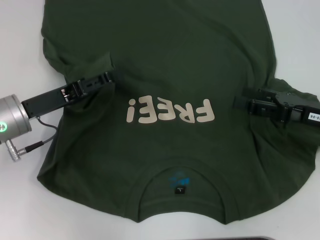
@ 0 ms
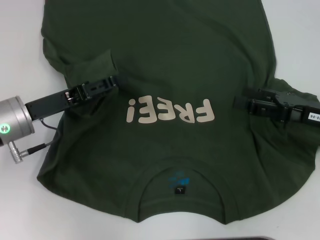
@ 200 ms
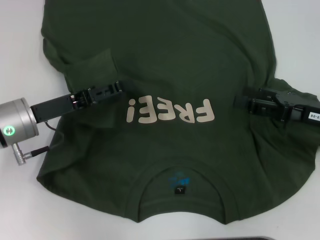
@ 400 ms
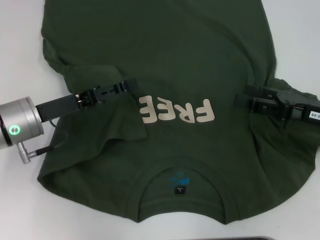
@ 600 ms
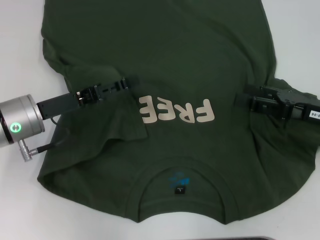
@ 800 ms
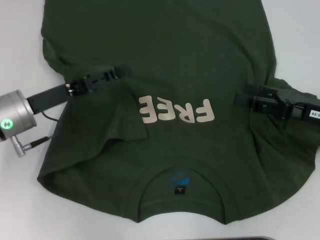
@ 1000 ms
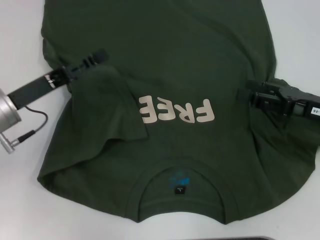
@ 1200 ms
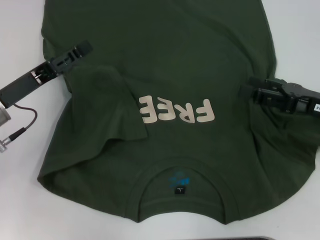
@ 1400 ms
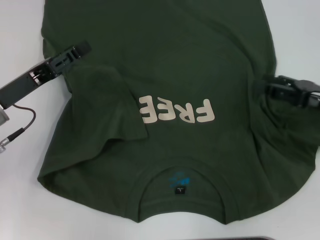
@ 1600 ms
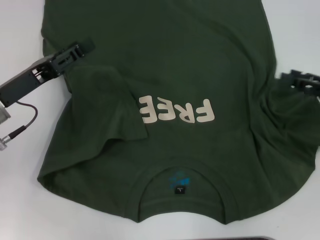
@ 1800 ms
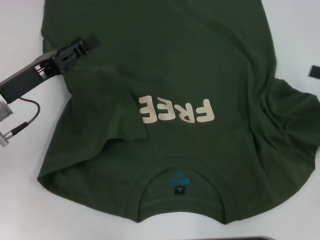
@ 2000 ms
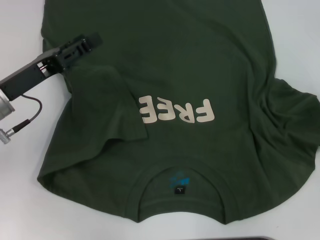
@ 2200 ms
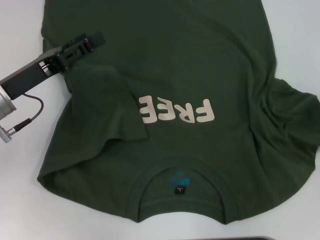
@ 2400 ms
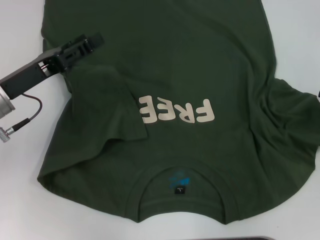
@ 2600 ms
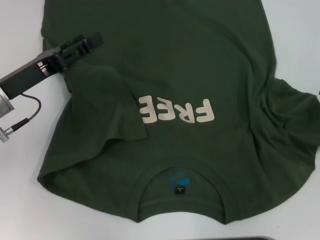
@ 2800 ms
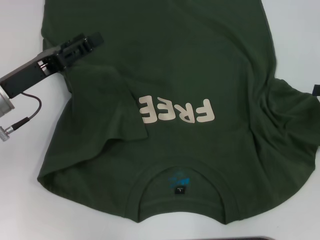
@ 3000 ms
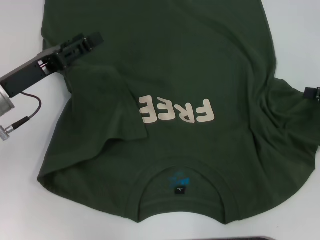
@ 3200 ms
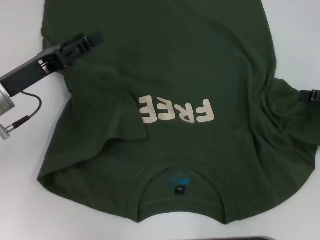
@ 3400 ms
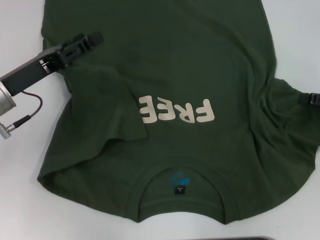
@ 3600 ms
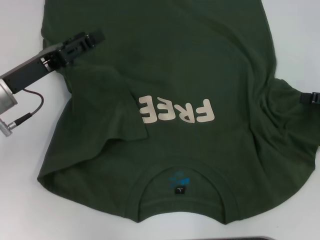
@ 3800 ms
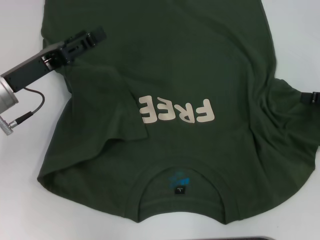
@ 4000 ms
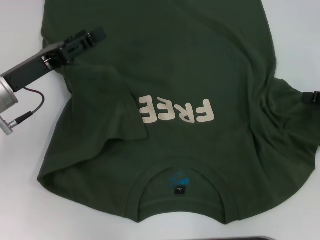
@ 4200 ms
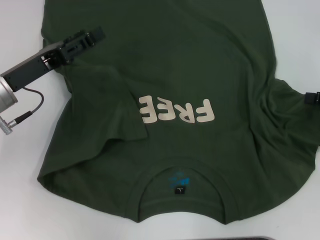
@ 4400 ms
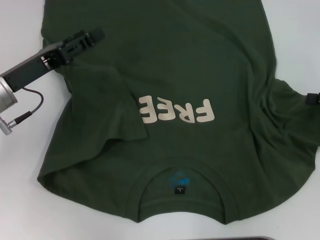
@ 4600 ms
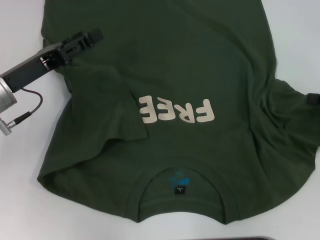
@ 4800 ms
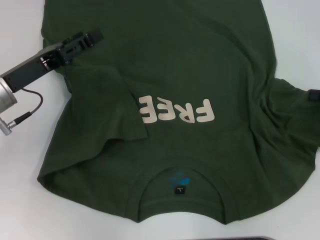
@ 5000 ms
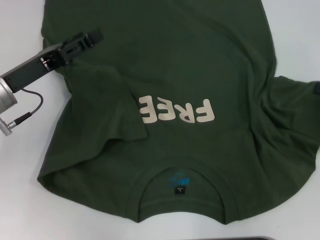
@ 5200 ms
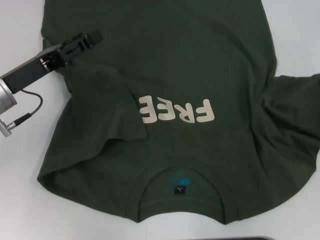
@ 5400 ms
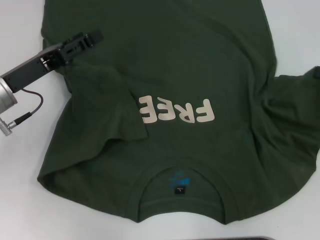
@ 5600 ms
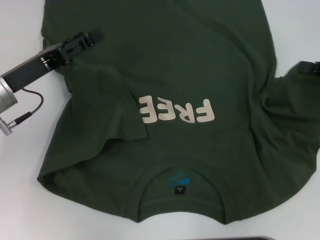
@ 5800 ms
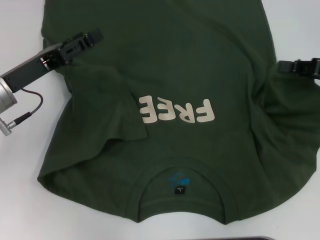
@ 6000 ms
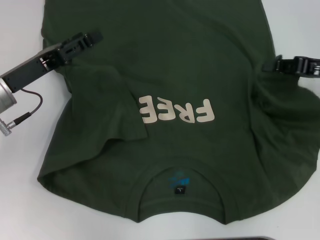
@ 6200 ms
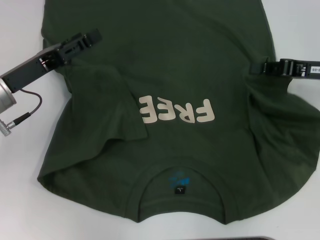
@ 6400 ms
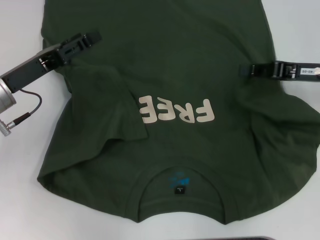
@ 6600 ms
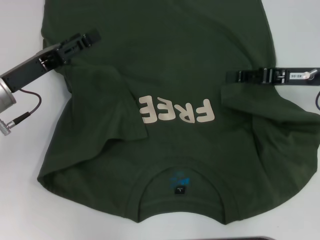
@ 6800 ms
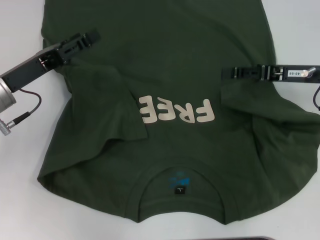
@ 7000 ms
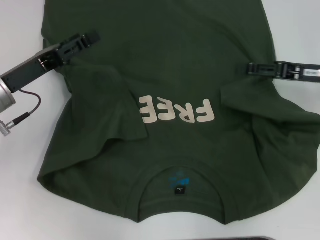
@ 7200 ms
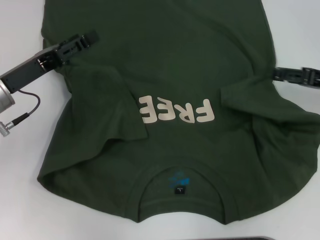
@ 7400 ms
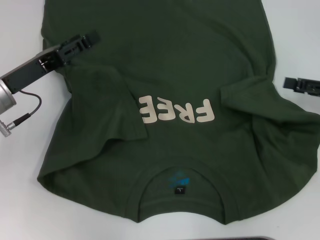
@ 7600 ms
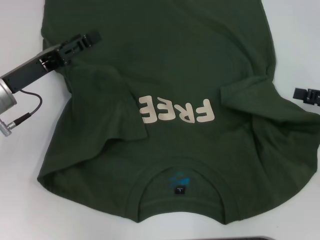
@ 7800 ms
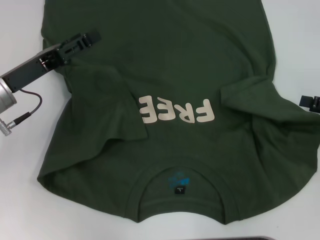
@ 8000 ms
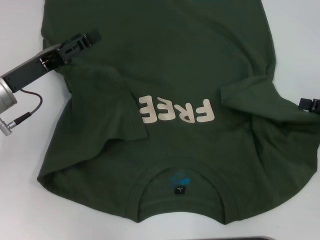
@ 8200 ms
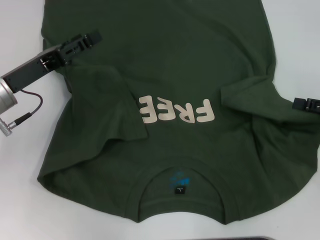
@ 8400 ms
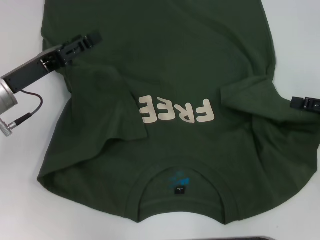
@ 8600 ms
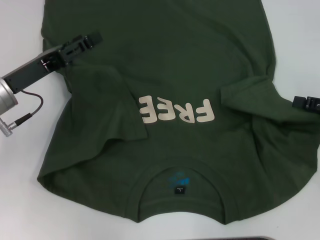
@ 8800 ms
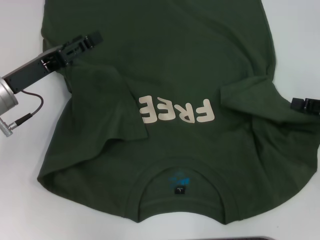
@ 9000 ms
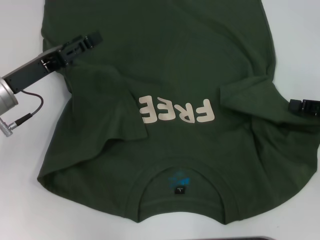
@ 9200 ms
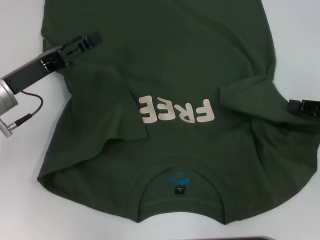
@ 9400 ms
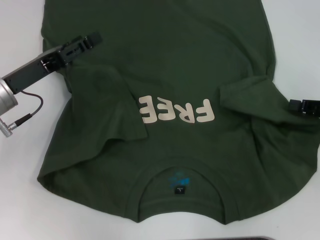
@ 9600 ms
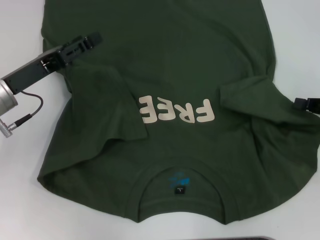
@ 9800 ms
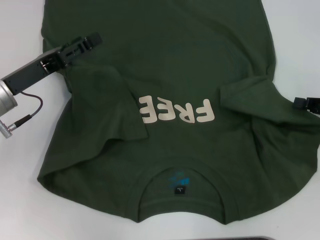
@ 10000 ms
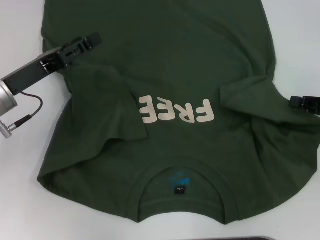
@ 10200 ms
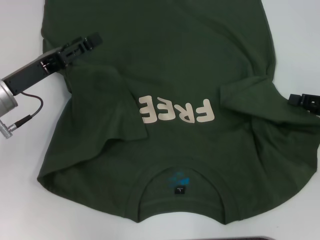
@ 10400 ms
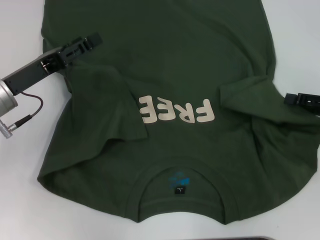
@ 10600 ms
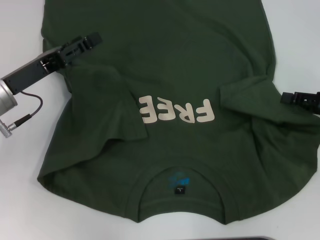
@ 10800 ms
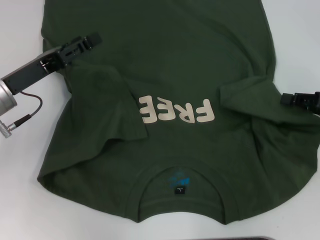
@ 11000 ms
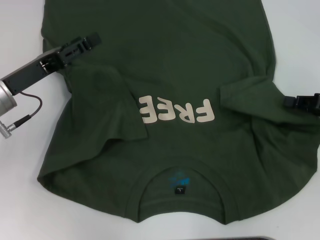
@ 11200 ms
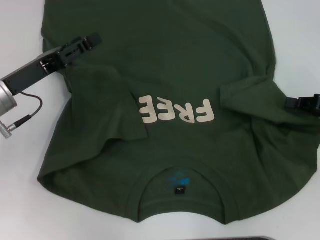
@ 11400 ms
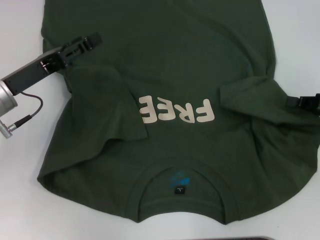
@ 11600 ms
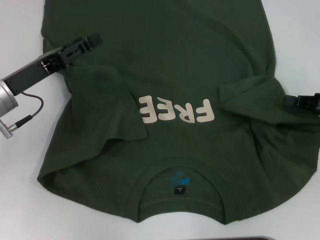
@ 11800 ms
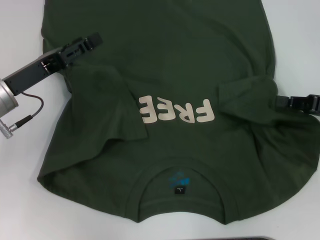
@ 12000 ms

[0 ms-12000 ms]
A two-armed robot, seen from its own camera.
0 ms to 1600 ms: There are only small adjustments of the grippers.
1600 ms to 3000 ms: The right gripper goes approximately 10 cm to the right.
4400 ms to 6000 ms: The right gripper moves about 5 cm, and closes its fingers.
6000 ms to 7600 ms: The right gripper travels to the left and back again, some 5 cm each way, and opens.
7600 ms to 9000 ms: The grippers stay close to where they were, moving slightly.
10400 ms to 12000 ms: The right gripper closes.

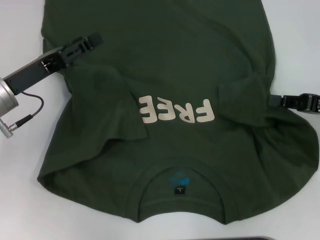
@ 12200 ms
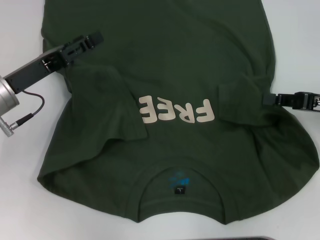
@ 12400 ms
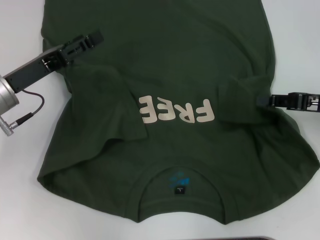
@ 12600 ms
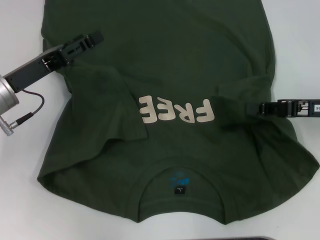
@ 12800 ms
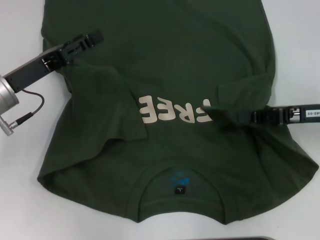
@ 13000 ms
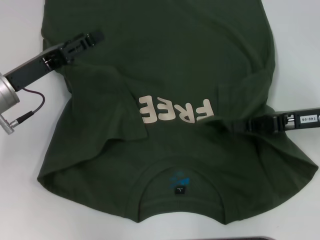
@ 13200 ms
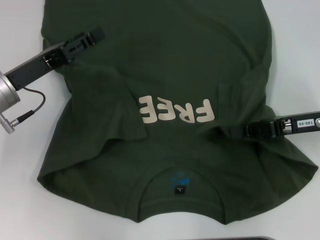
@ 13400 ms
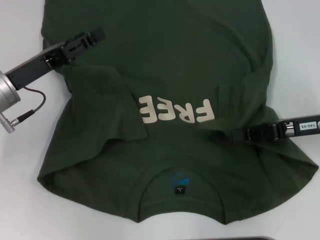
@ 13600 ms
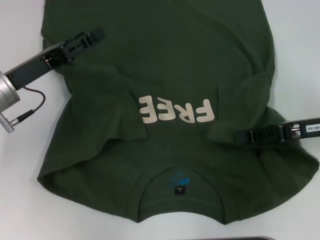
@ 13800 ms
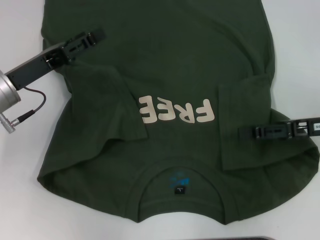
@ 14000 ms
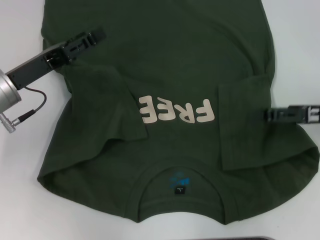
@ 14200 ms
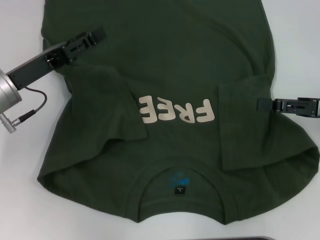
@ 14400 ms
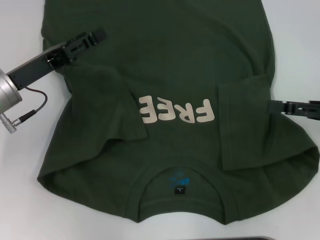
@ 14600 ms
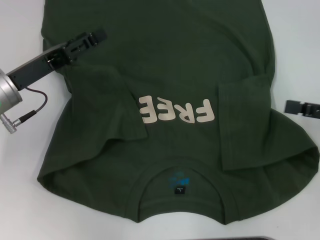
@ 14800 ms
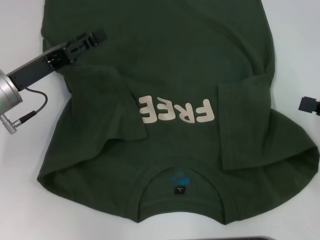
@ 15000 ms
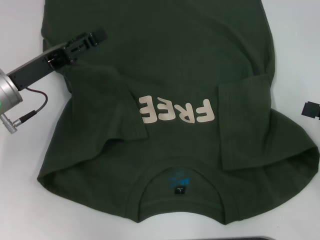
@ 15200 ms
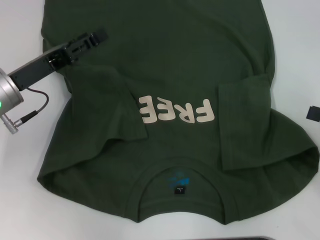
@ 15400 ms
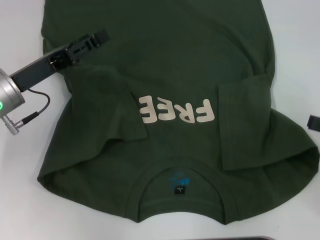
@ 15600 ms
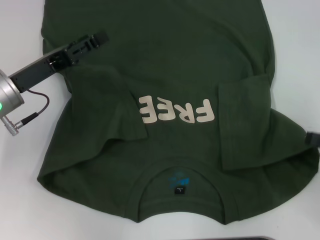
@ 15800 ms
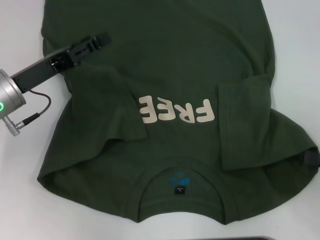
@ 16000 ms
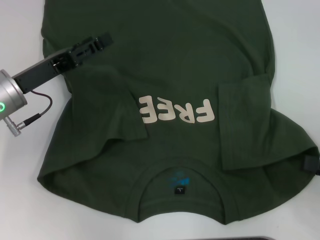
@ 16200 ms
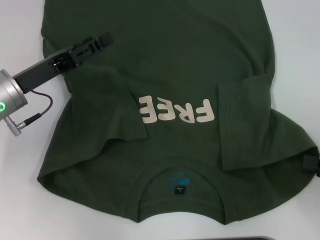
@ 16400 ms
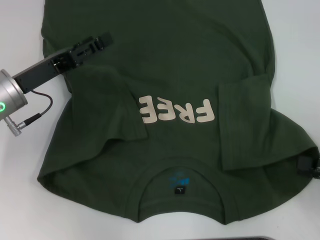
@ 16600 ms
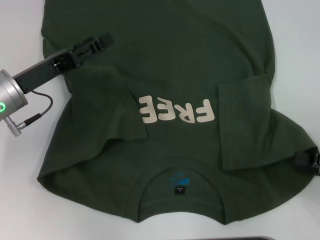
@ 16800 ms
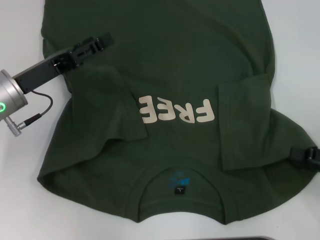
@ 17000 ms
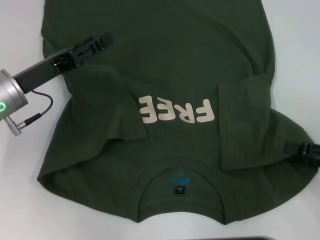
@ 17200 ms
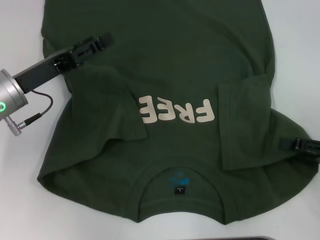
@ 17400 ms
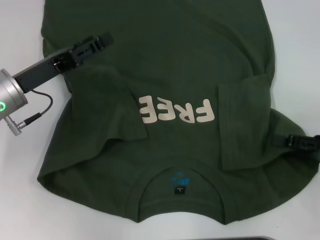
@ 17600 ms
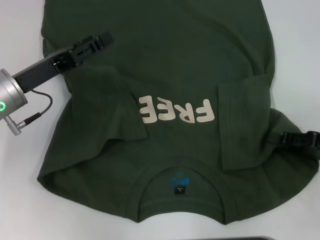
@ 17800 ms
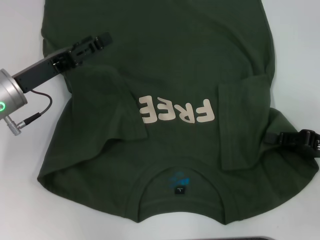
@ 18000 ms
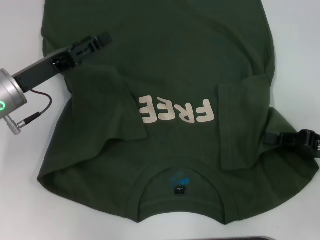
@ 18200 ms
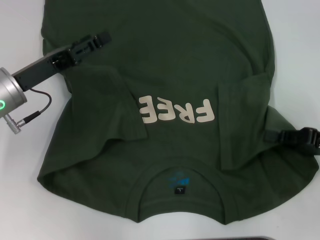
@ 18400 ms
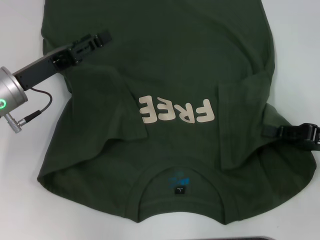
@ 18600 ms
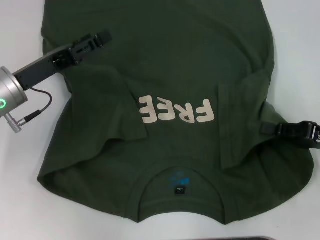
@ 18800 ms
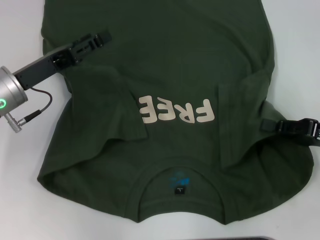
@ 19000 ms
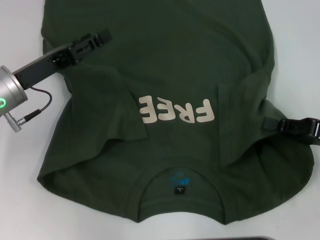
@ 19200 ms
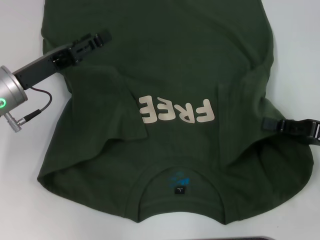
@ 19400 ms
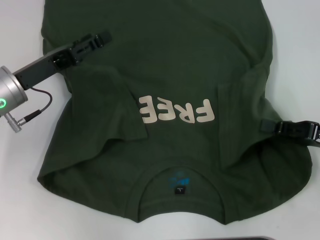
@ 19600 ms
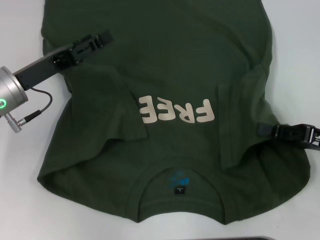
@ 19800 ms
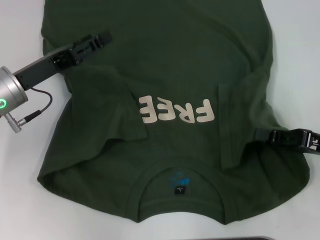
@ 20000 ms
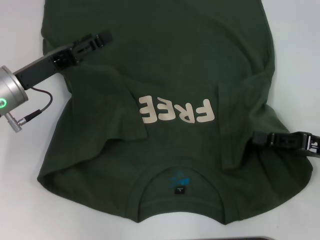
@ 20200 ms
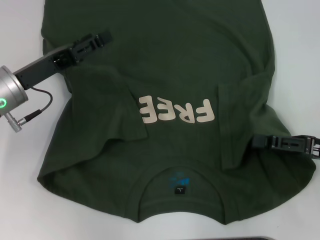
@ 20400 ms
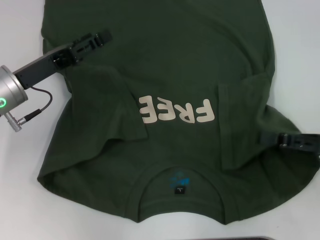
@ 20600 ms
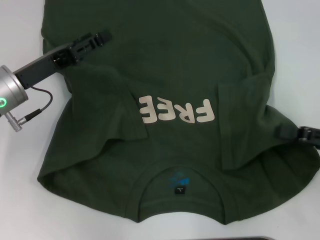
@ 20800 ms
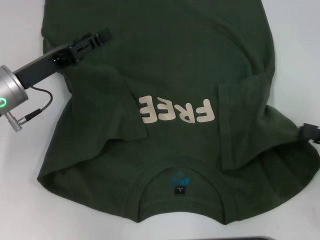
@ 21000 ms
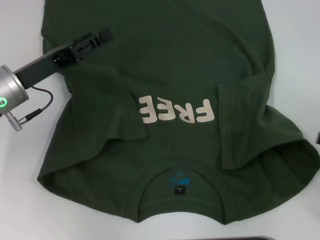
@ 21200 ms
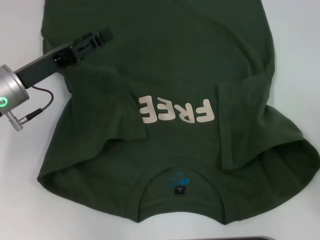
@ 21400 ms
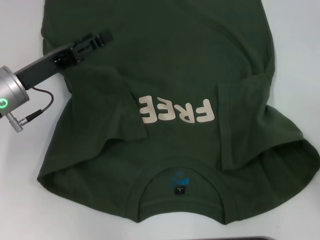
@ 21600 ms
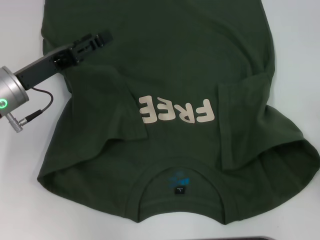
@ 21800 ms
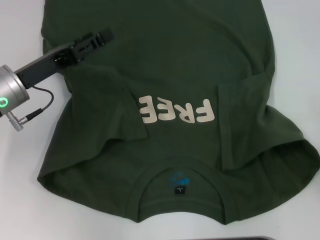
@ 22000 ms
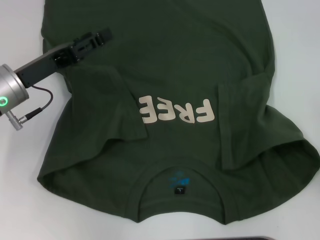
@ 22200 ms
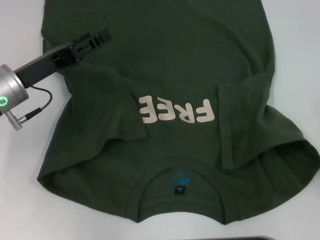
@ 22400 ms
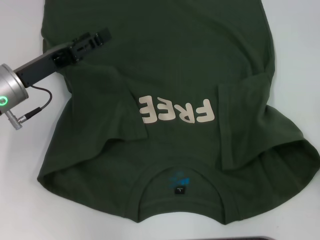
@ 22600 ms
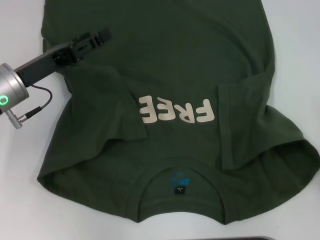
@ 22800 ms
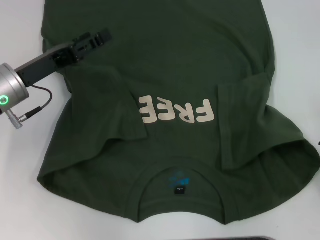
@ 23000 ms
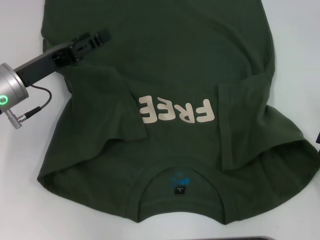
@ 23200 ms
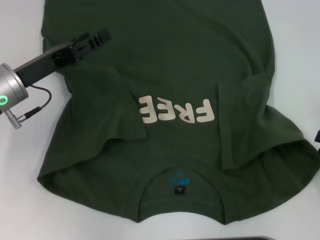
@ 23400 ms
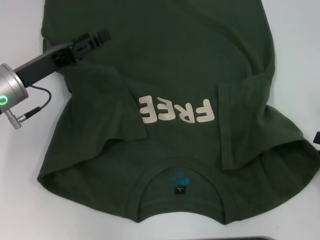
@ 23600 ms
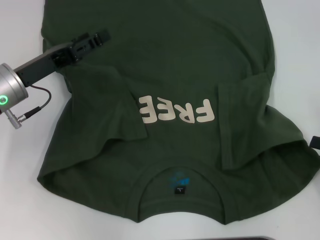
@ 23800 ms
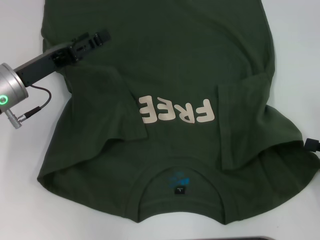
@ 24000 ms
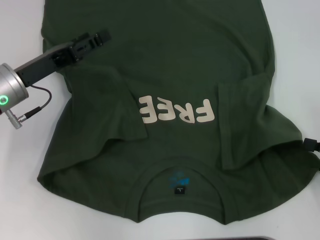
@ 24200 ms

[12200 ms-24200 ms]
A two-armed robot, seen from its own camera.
12200 ms to 13800 ms: The grippers move only a little.
13800 ms to 15200 ms: The right gripper is displaced to the right and backward by roughly 10 cm, and opens.
16600 ms to 18200 ms: The right gripper is displaced forward by about 5 cm, and closes up.
18200 ms to 19800 ms: The grippers move only a little.
19800 ms to 21200 ms: The right gripper shifts approximately 10 cm to the right and backward, and opens.
